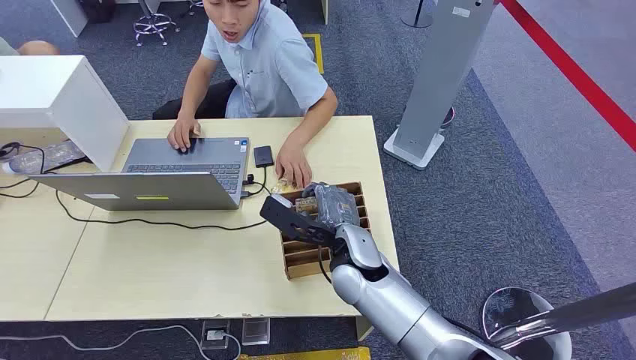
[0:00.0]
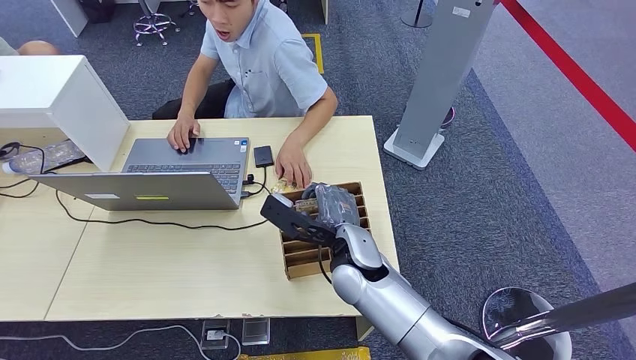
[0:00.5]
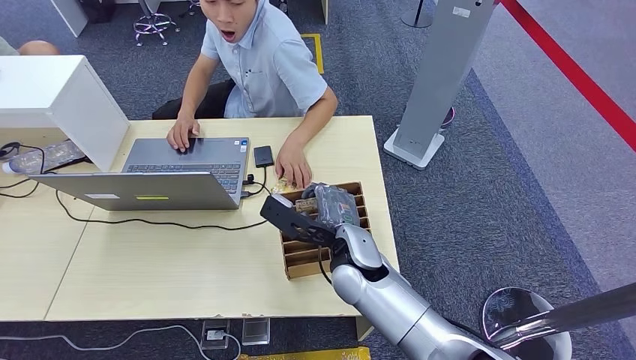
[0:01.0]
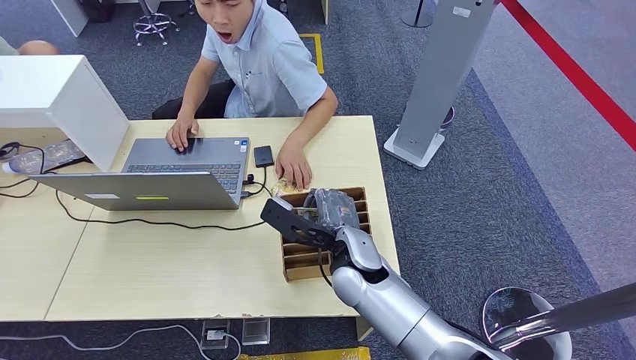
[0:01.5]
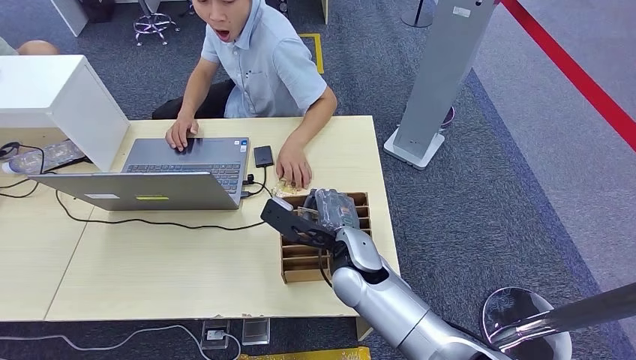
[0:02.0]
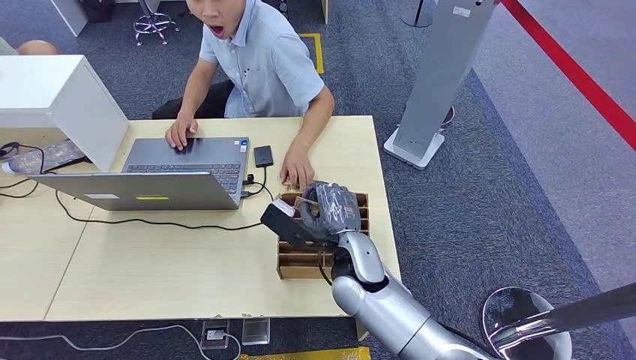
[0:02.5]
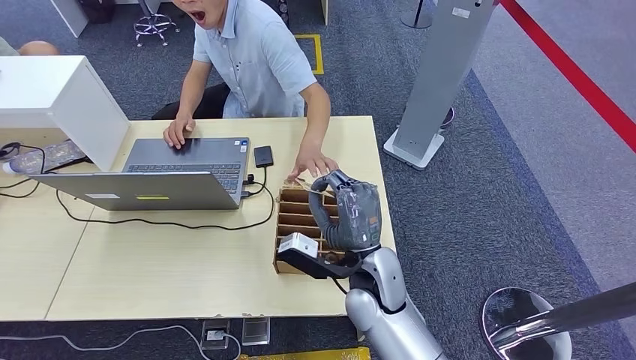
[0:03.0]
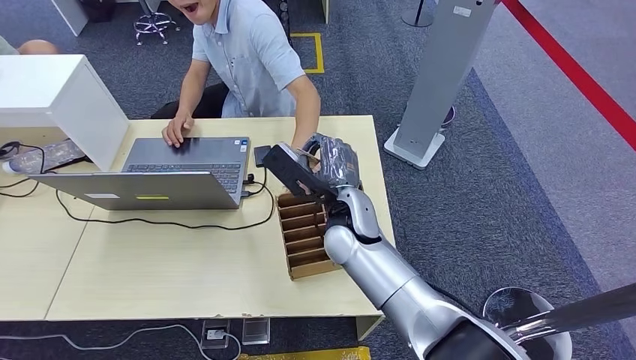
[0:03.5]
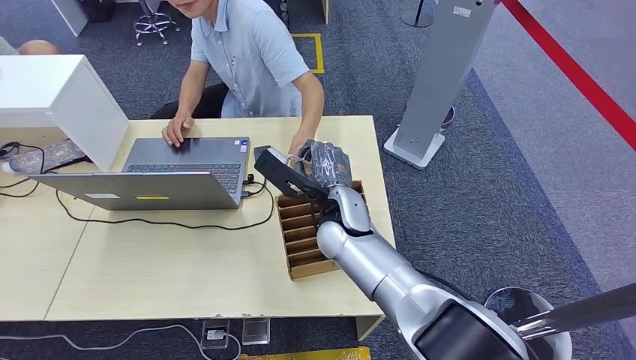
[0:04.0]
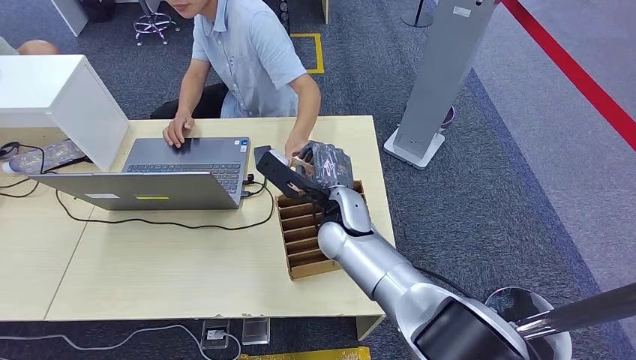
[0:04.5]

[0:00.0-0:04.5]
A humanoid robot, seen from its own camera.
Step, 0:00.0 to 0:02.5: Pick up the key card from the card box.
Step, 0:03.5 to 0:04.5: Hand the key card to the target.
0:02.0 to 0:04.5: The right hand heads forward, covering some 5 cm.
